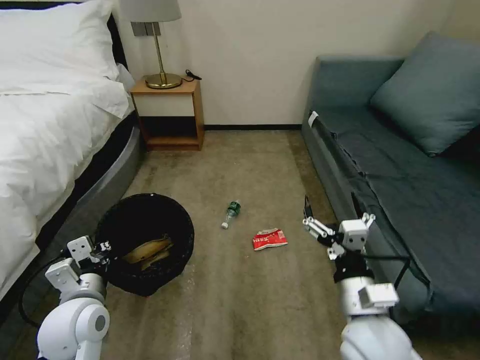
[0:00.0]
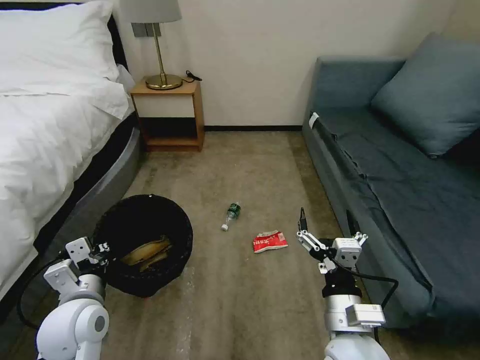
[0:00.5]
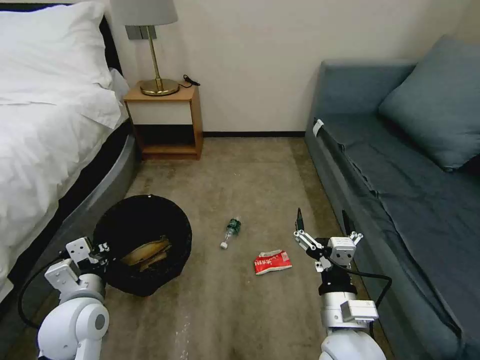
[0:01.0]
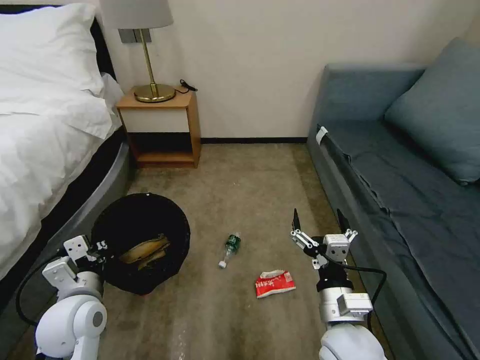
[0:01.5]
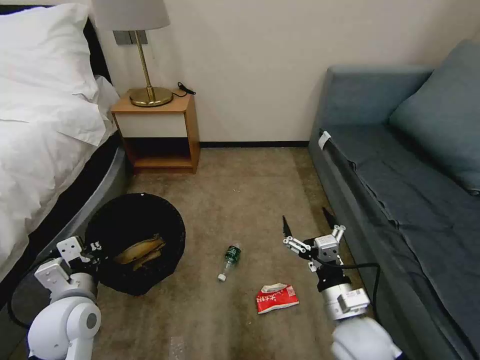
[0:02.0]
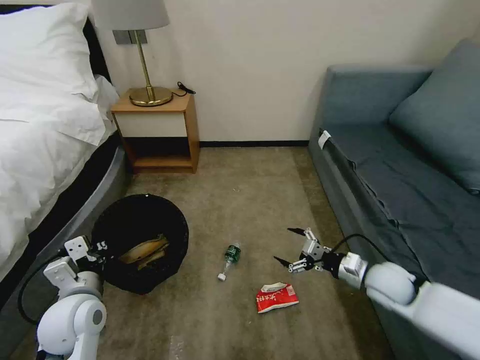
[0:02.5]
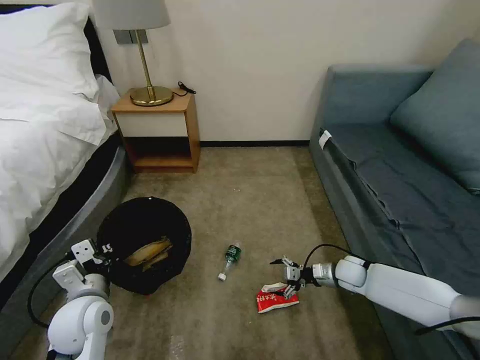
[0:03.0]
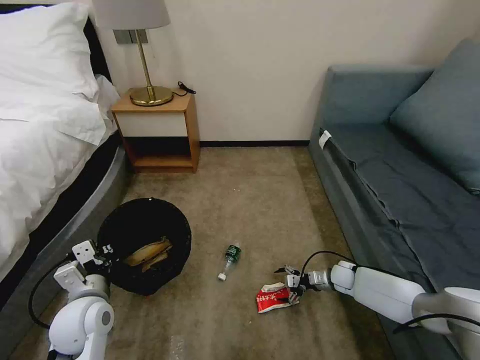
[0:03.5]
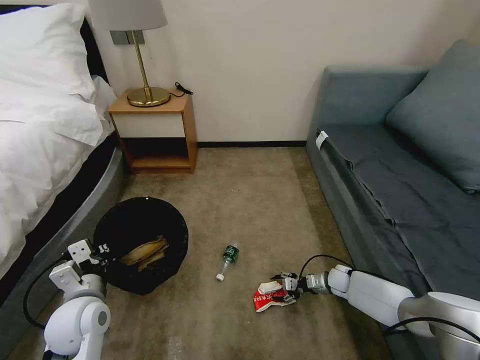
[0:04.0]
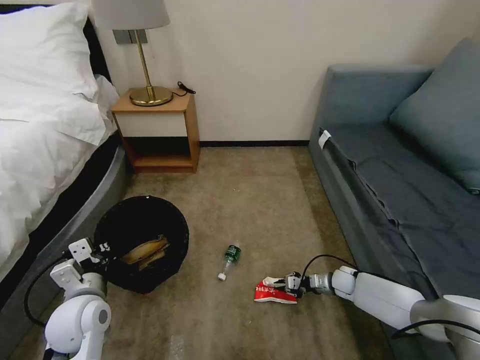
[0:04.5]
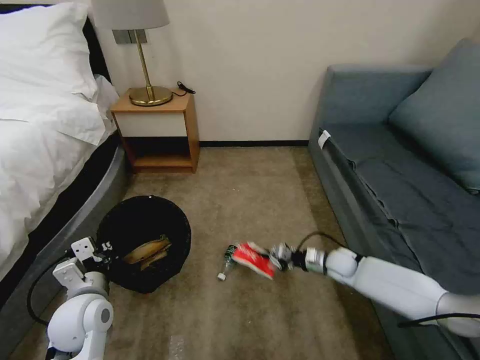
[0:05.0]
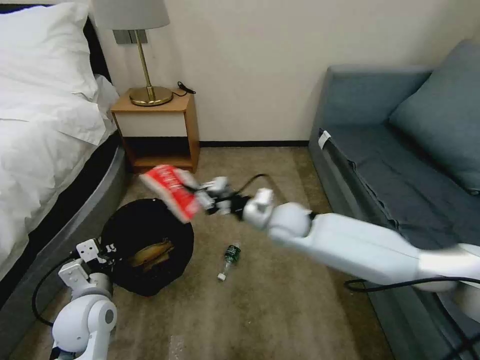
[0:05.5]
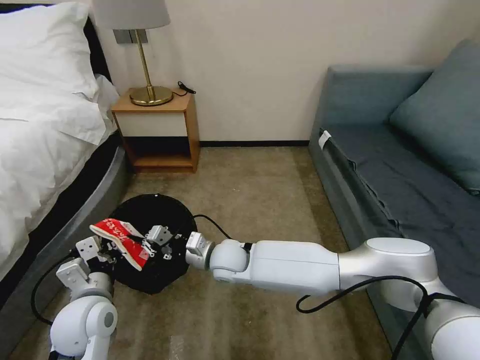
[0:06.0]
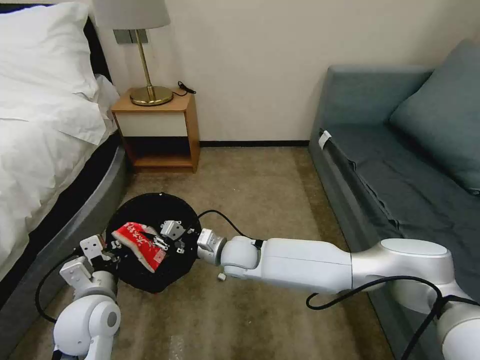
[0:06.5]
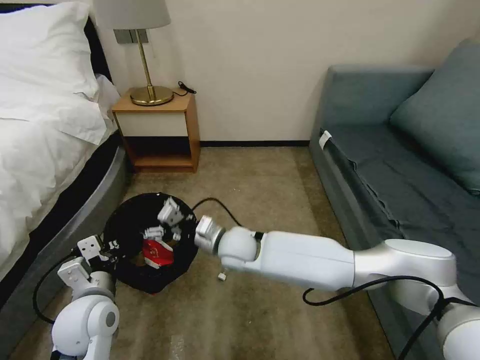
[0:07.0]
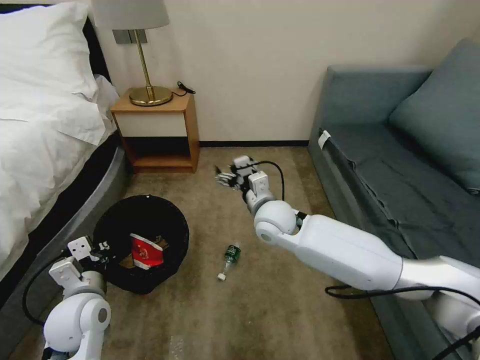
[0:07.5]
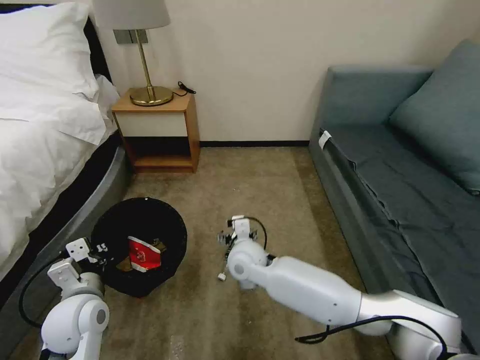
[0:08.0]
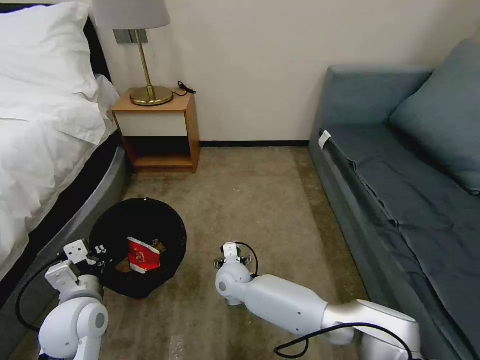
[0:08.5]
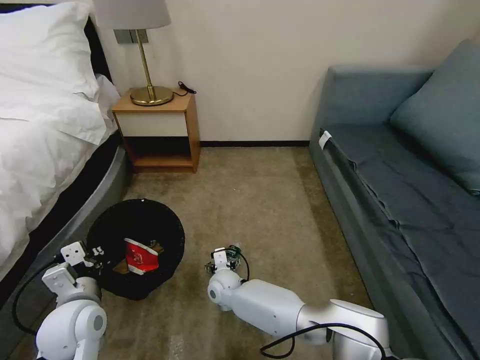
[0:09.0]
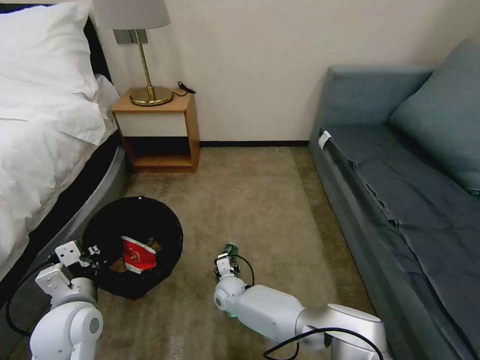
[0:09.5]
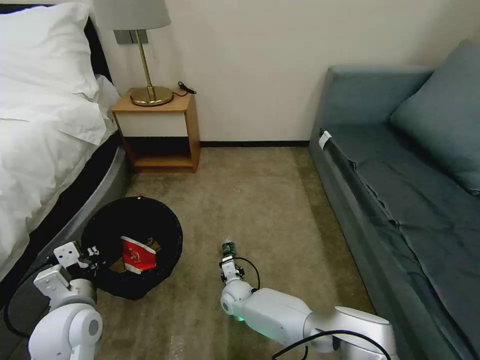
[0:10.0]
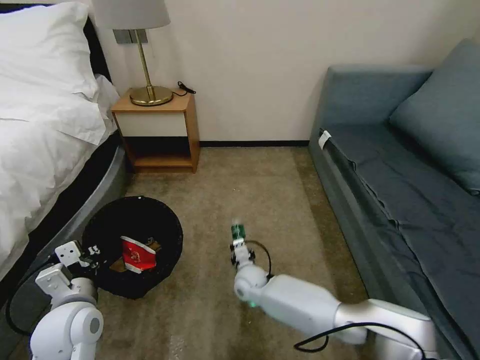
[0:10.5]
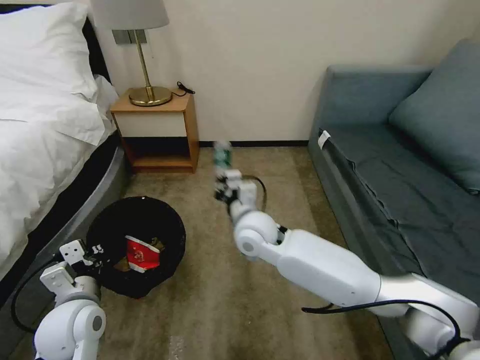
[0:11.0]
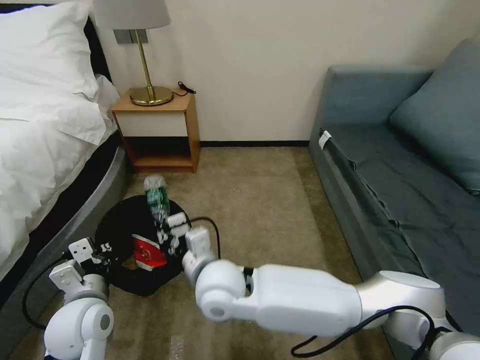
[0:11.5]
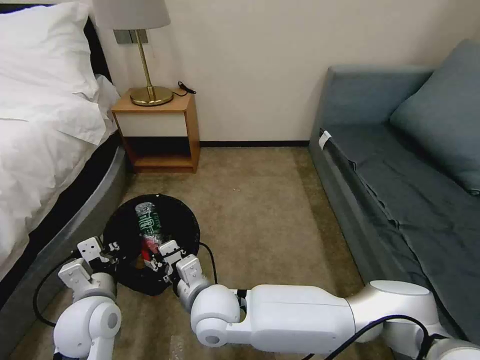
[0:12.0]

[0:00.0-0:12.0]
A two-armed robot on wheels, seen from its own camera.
Task of the whole recording: Pick up the trash bin, then pick up the garbage on the floor and place it into the trash bin.
0:00.0 to 0:02.0: The right gripper is displaced downward by some 5 cm.
0:02.0 to 0:04.0: The right gripper is displaced downward, forward and to the right by approximately 35 cm.
0:04.0 to 0:06.0: The right gripper shifts some 40 cm to the left and upward, and closes.
0:06.0 to 0:08.0: The right gripper opens its fingers.
0:08.0 to 0:10.0: The right gripper travels downward by about 20 cm, and closes up.
0:10.0 to 0:12.0: The right gripper is displaced upward and backward by roughly 25 cm.

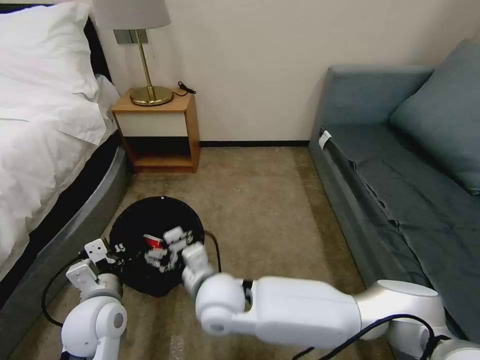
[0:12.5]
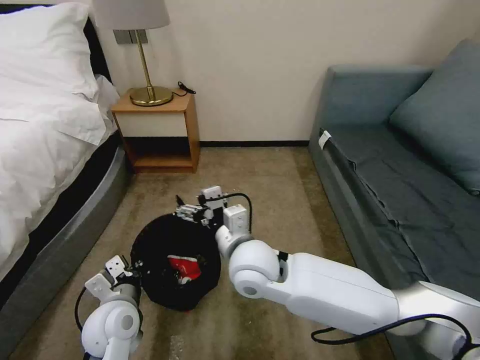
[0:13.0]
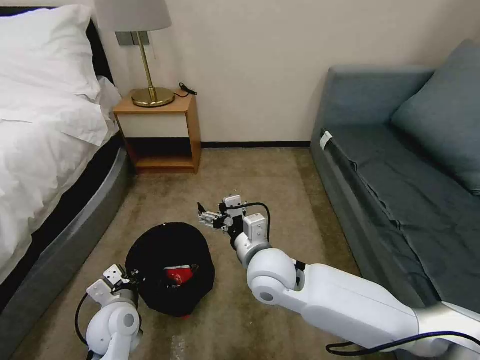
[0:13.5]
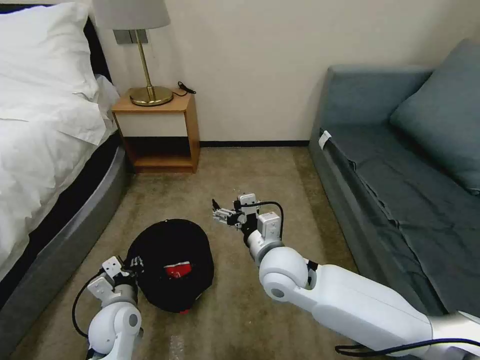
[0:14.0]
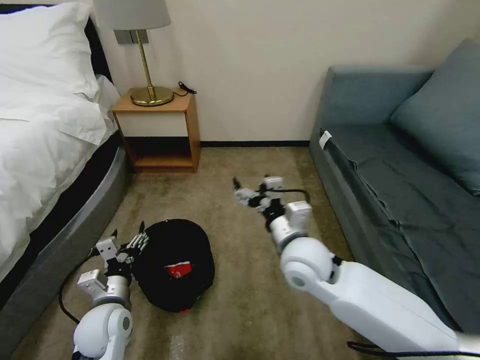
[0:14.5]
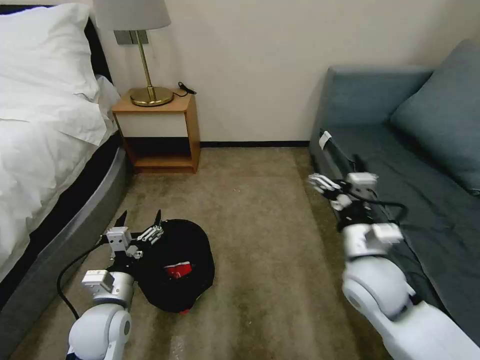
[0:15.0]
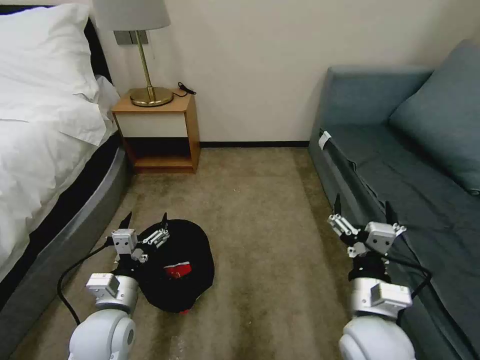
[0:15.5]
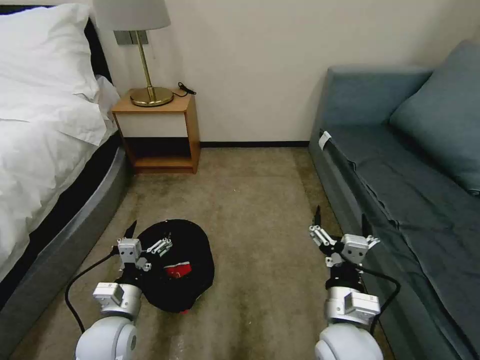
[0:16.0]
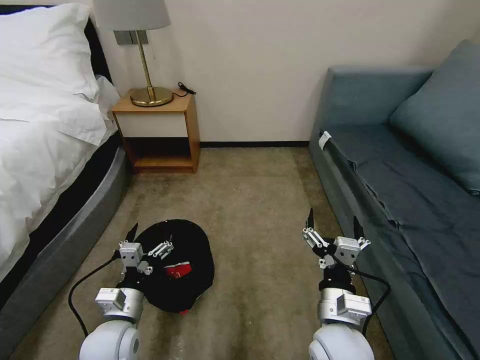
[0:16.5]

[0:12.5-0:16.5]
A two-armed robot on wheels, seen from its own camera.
Task of the whole recording: Pick up the trash bin, then pick up the garbage on the floor and place it into the trash bin.
0:12.5 to 0:14.5: The right gripper goes some 15 cm to the right; the left gripper shifts some 5 cm downward, and opens up.
0:14.5 to 0:16.5: The right gripper is displaced backward and downward by about 15 cm.

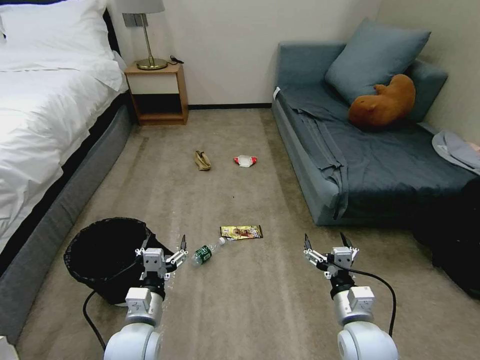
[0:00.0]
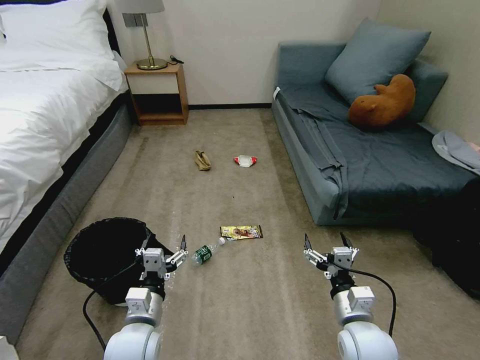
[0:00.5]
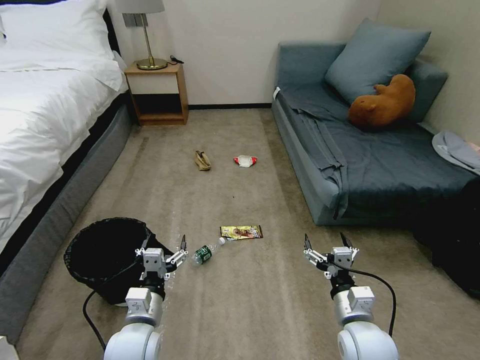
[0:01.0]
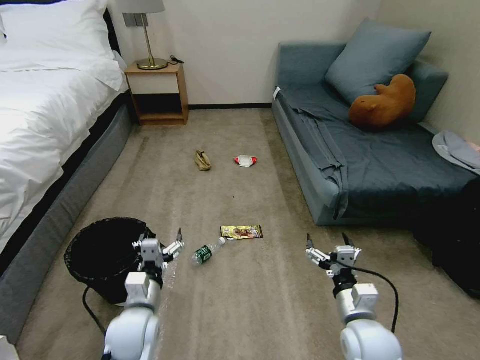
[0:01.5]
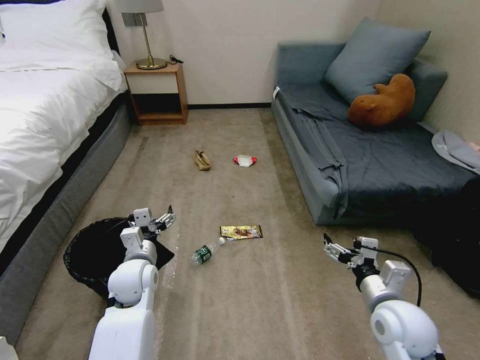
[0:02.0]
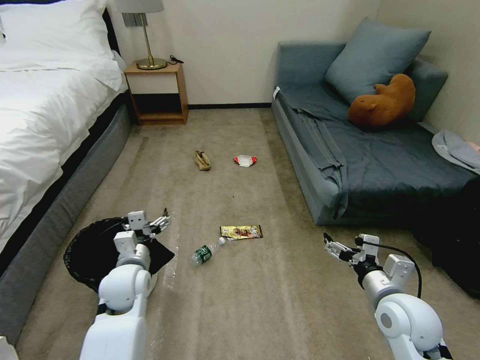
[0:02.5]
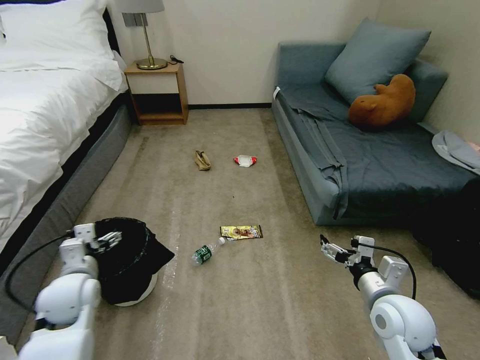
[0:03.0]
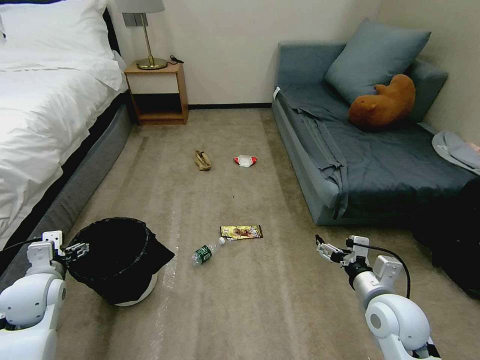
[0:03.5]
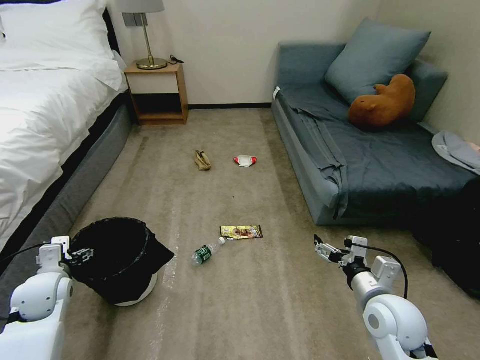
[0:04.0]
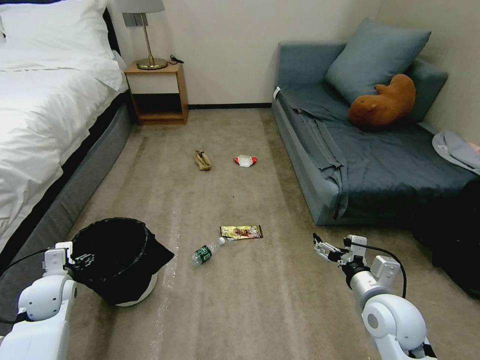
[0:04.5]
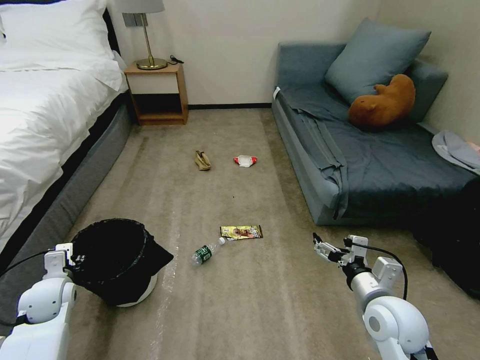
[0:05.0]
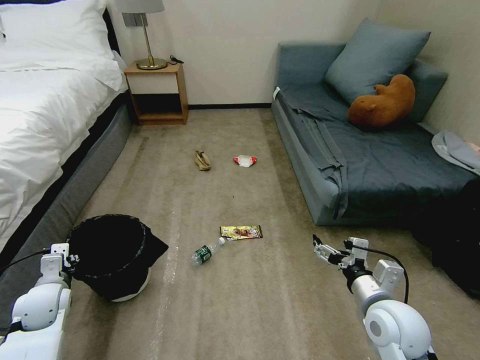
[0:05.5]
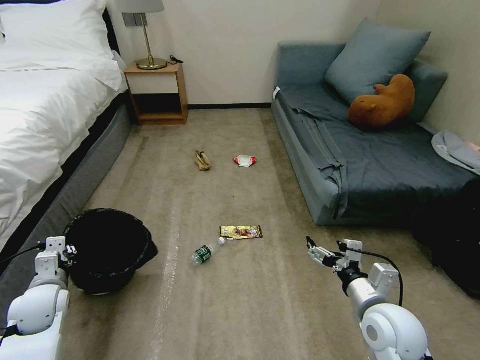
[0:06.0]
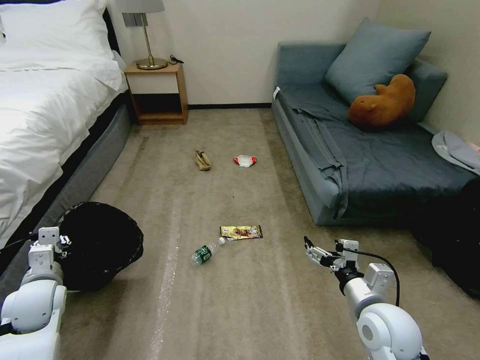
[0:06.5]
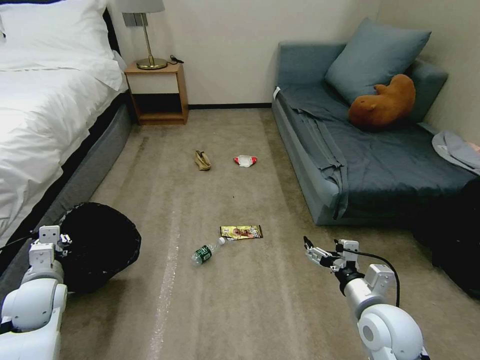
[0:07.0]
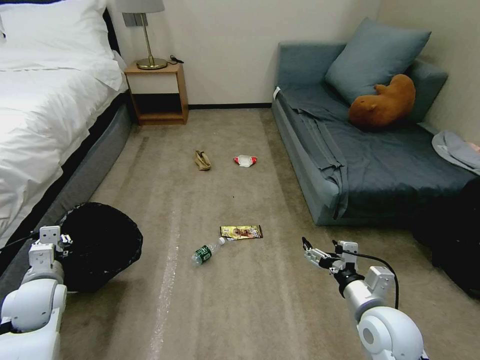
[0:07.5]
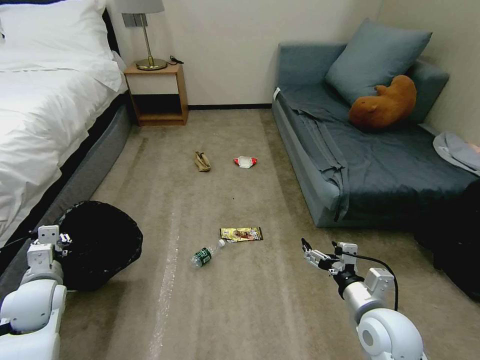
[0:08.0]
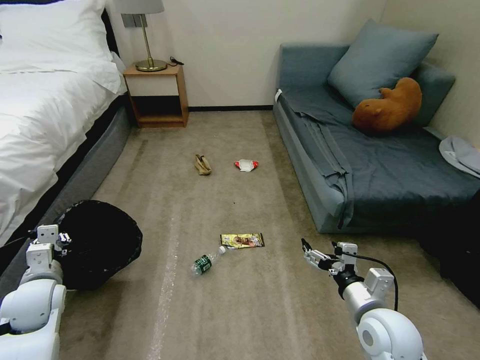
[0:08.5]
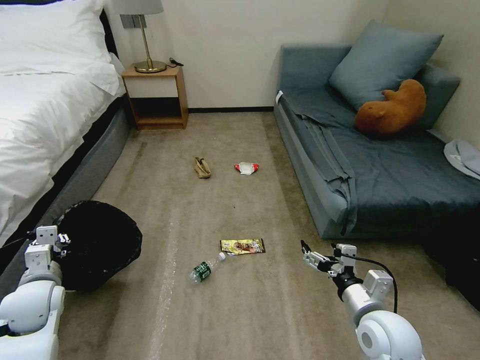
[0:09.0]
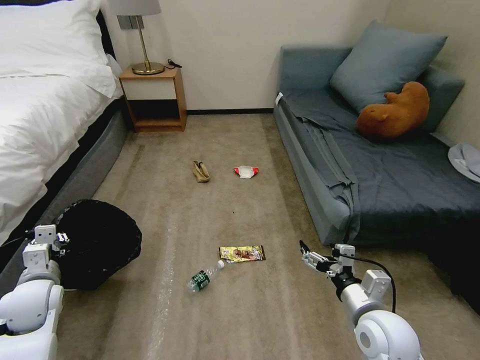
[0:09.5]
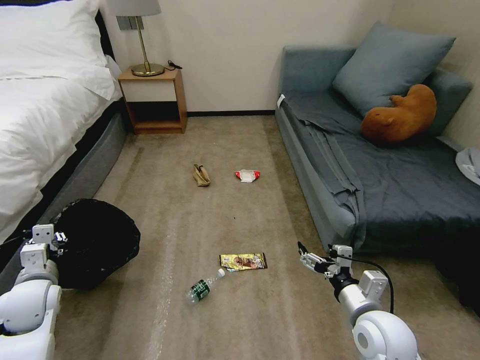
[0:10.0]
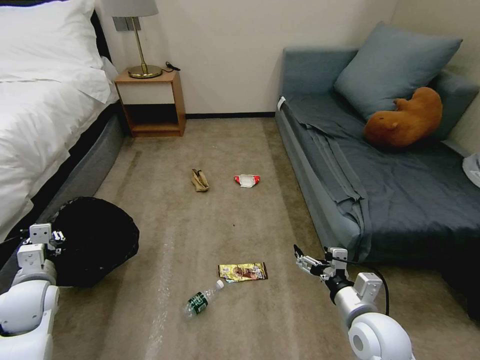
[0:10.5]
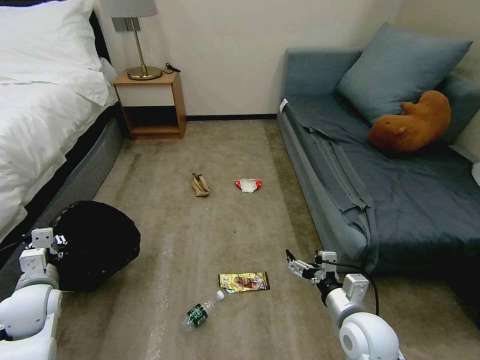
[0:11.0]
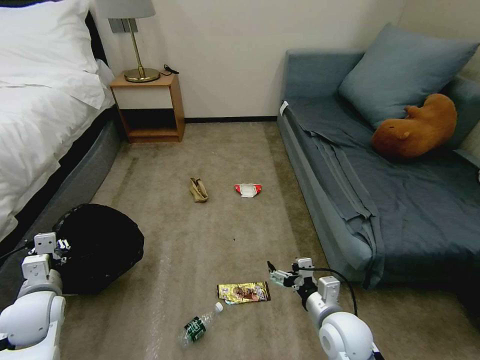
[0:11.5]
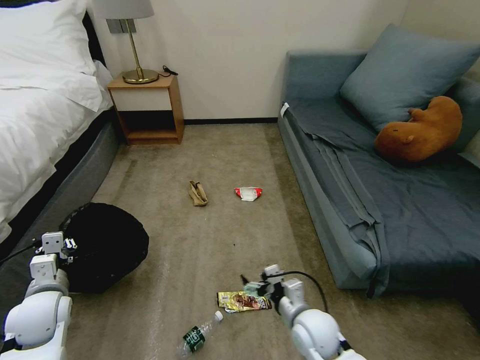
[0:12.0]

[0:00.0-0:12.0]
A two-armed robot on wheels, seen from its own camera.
Task of the whole recording: Pick up the trash bin, then pick up the garbage on the floor and place it into the trash bin.
0:02.0 to 0:04.0: The left gripper travels to the left by some 20 cm.
0:04.0 to 0:06.0: The left gripper closes.
0:06.0 to 0:08.0: There are only small adjustments of the grippers.
0:10.0 to 0:12.0: The right gripper heads to the left and downward, covering approximately 15 cm.
